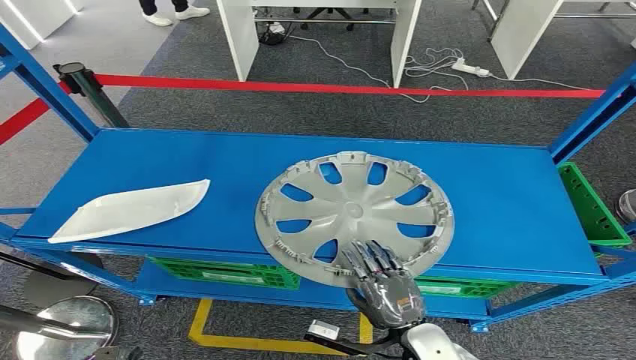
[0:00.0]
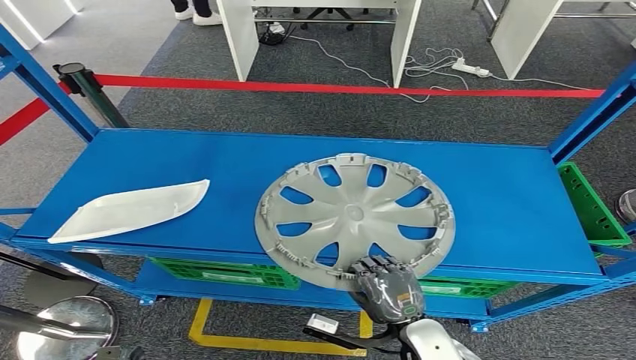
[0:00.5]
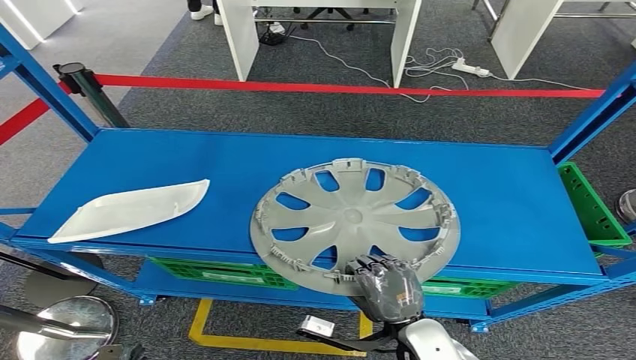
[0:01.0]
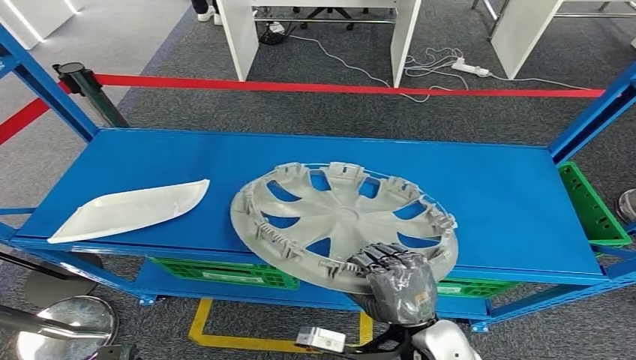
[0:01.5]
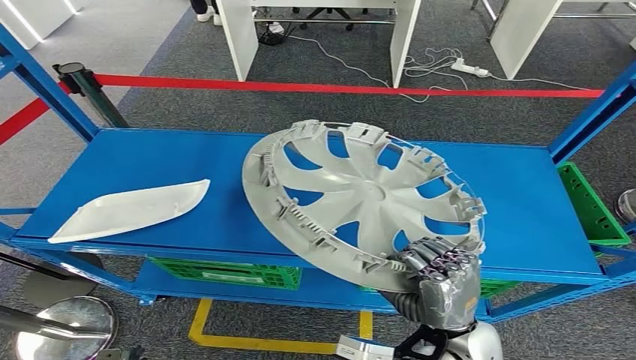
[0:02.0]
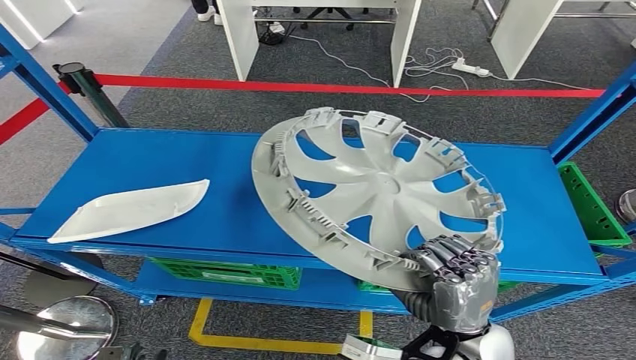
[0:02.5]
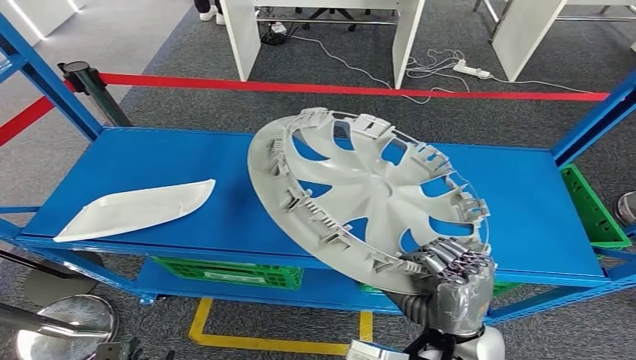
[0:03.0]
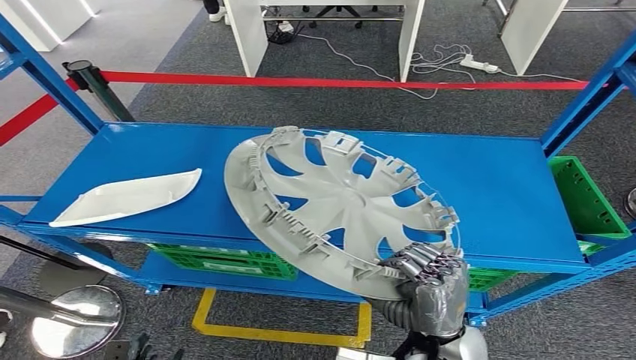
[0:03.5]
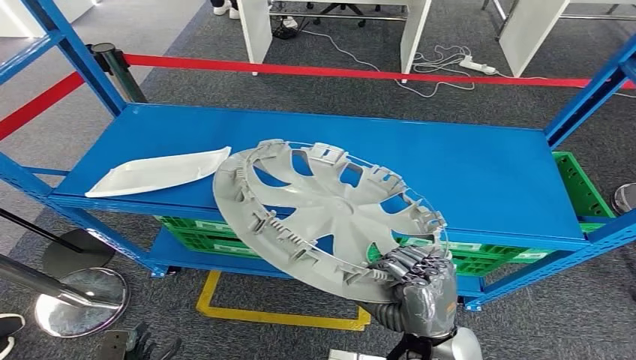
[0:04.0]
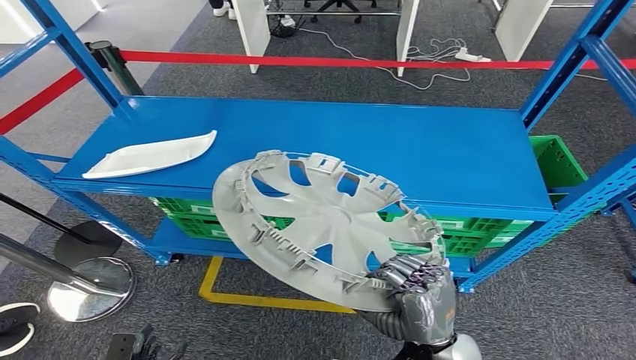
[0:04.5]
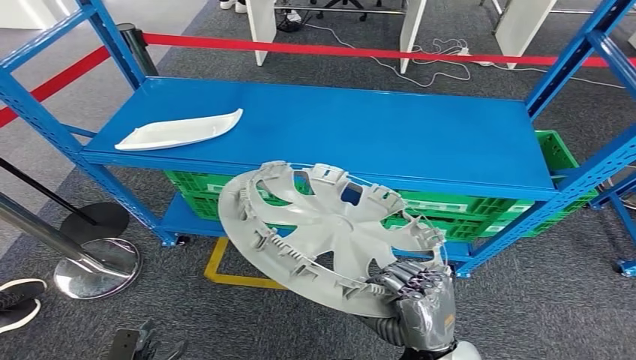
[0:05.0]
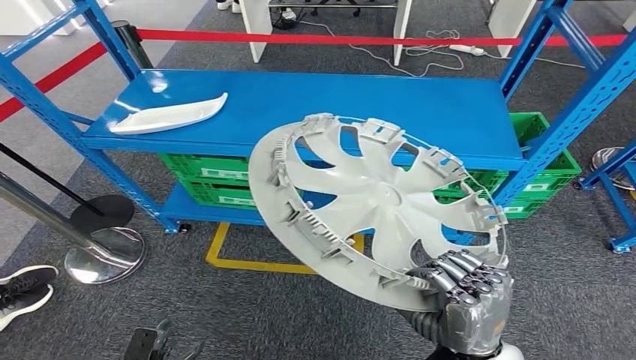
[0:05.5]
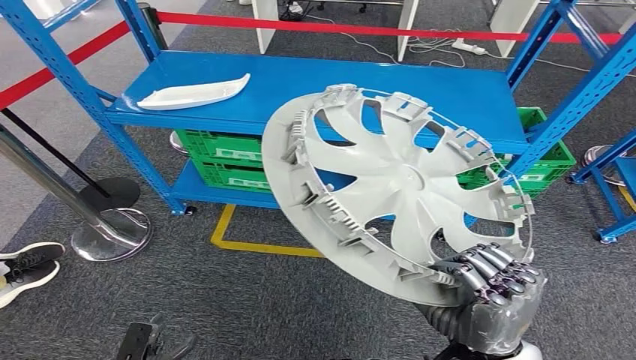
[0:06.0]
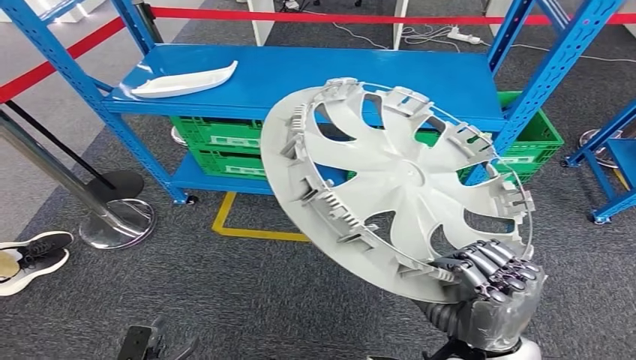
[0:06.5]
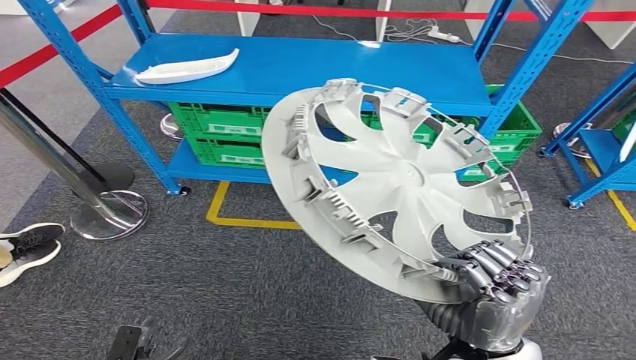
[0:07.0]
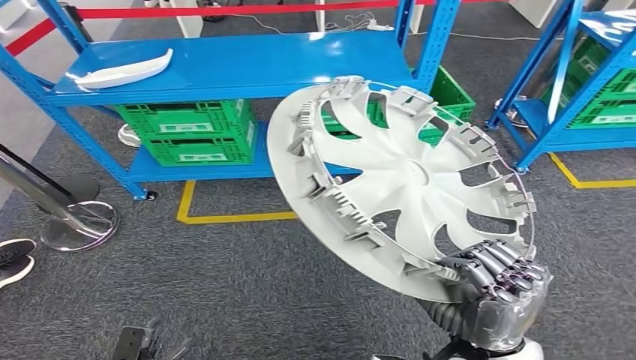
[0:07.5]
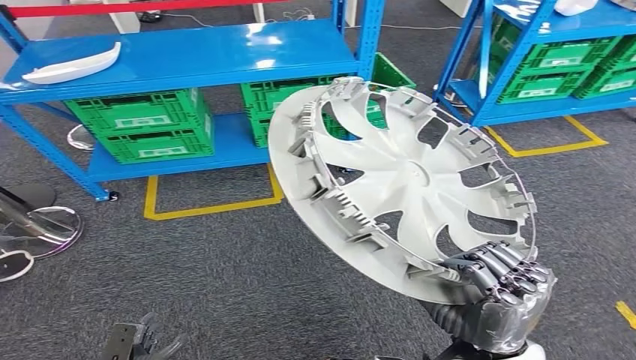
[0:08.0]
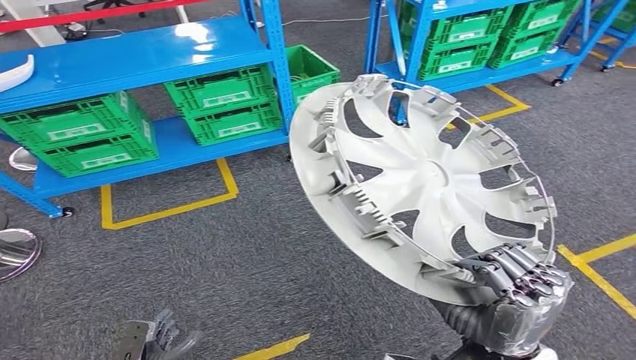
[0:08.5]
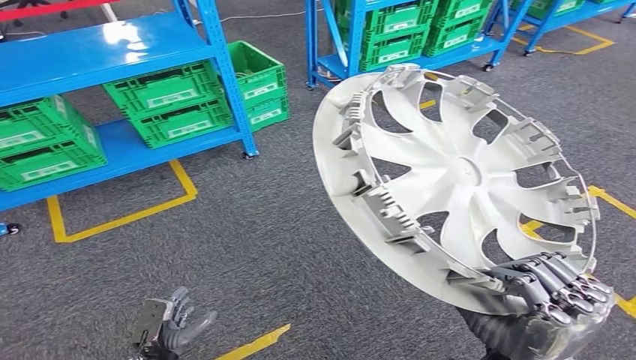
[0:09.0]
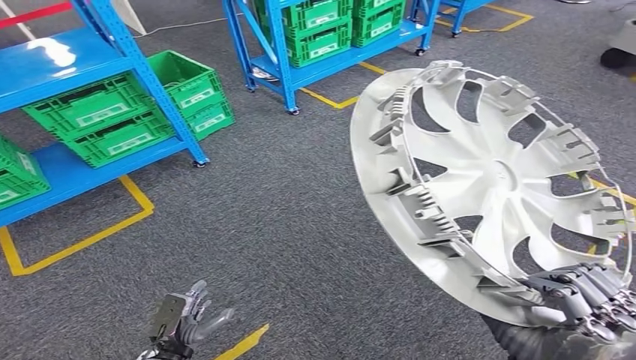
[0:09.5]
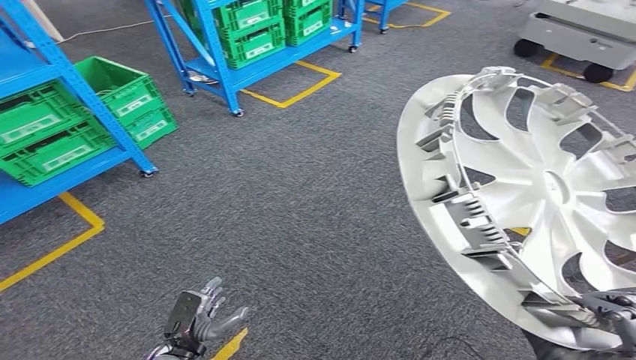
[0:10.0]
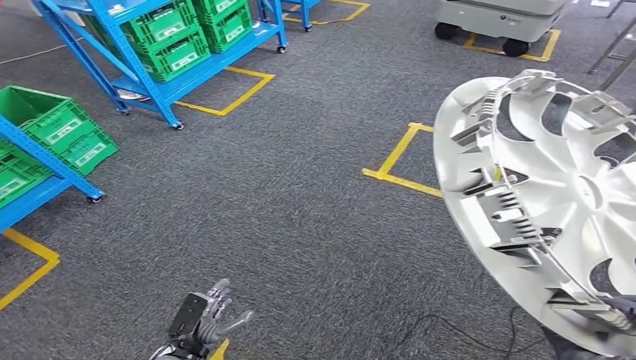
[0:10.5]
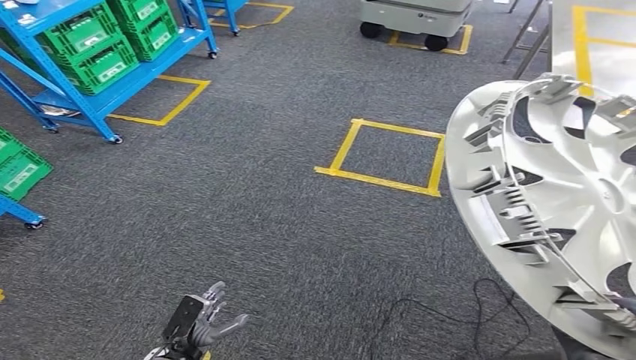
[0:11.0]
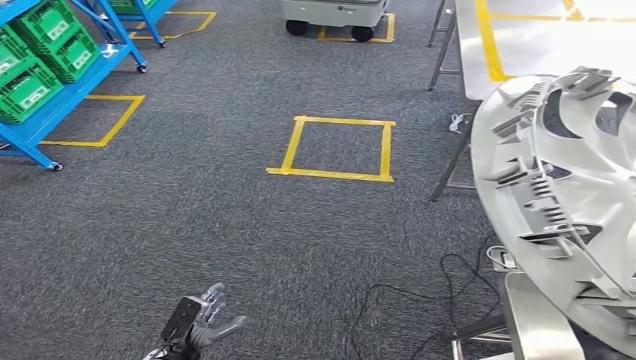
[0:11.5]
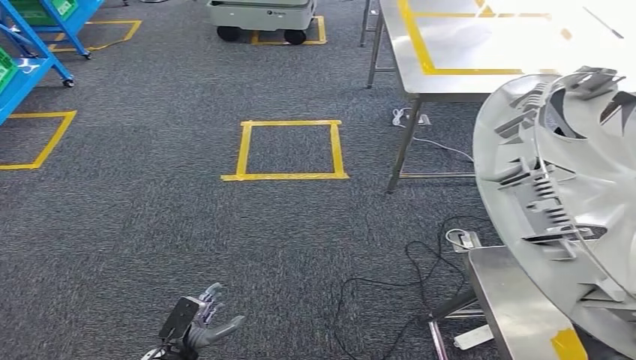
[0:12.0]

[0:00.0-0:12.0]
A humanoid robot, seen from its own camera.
Step, 0:00.0 to 0:04.0: Take small components from the rack.

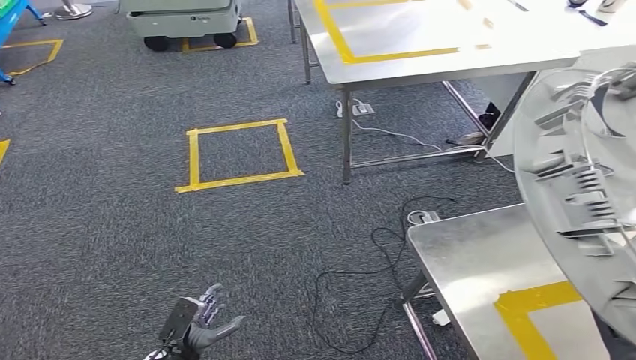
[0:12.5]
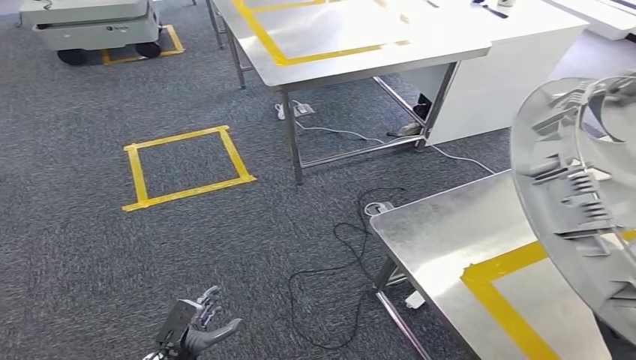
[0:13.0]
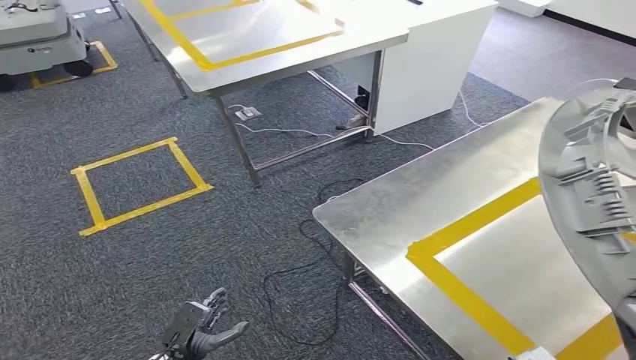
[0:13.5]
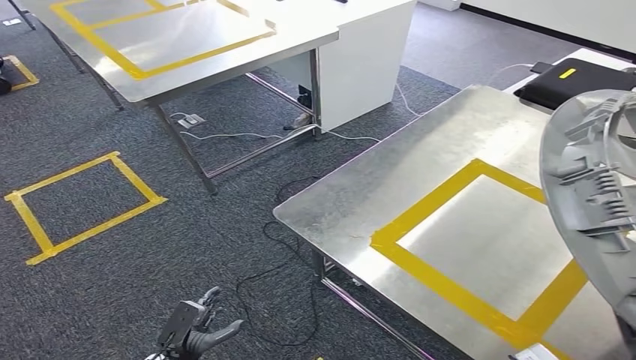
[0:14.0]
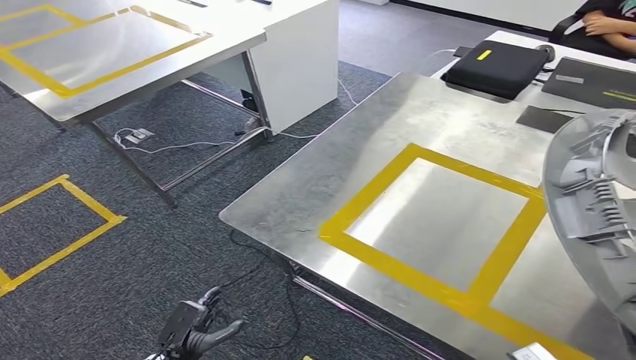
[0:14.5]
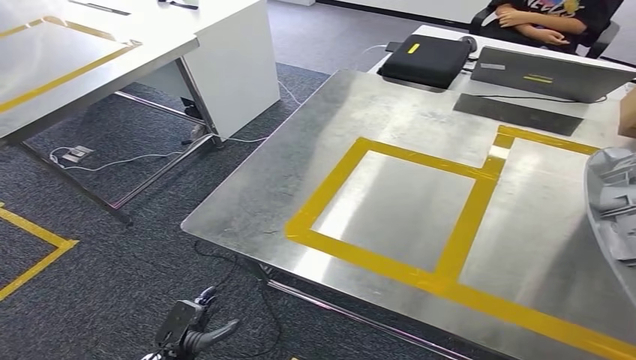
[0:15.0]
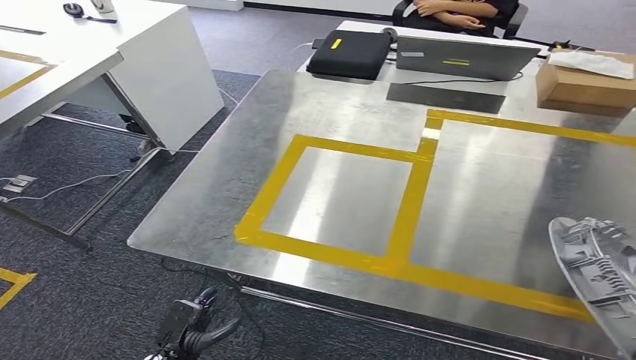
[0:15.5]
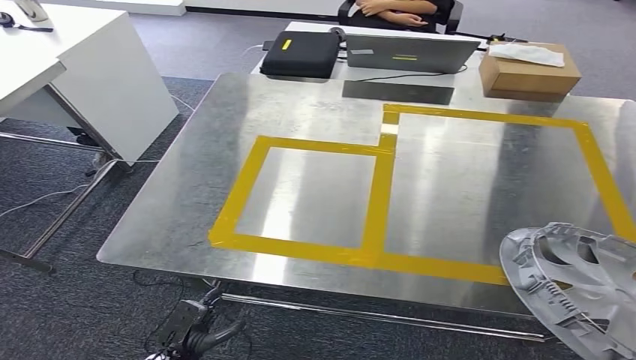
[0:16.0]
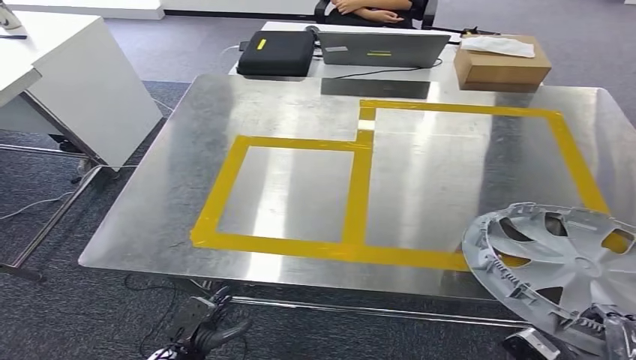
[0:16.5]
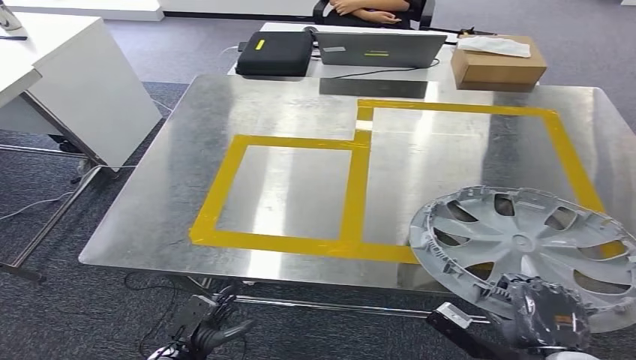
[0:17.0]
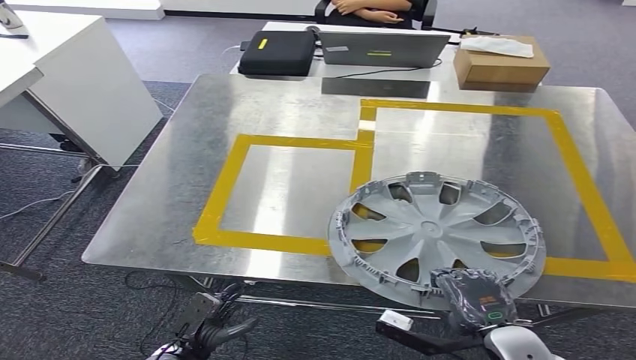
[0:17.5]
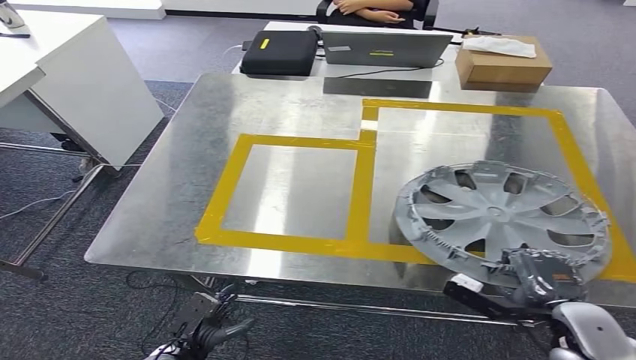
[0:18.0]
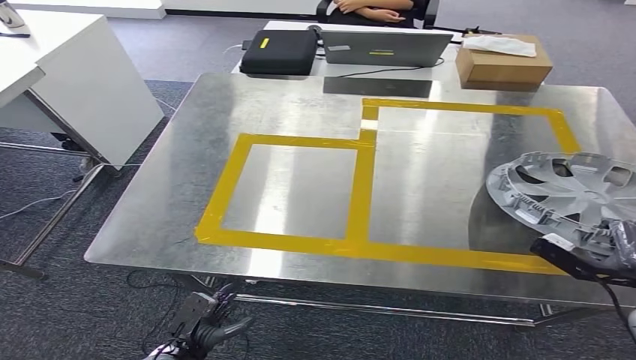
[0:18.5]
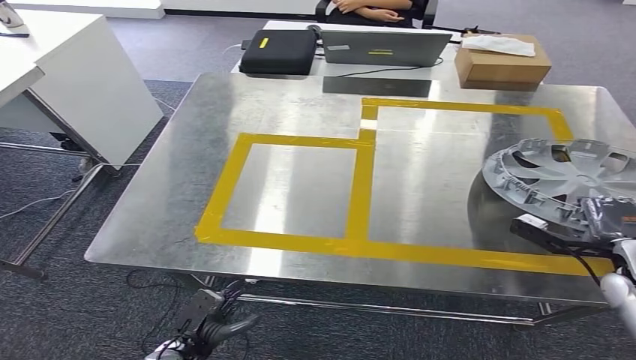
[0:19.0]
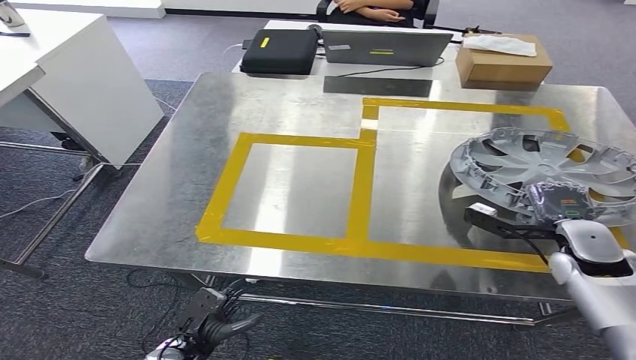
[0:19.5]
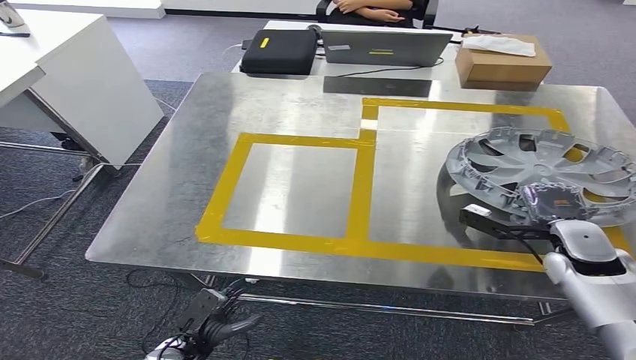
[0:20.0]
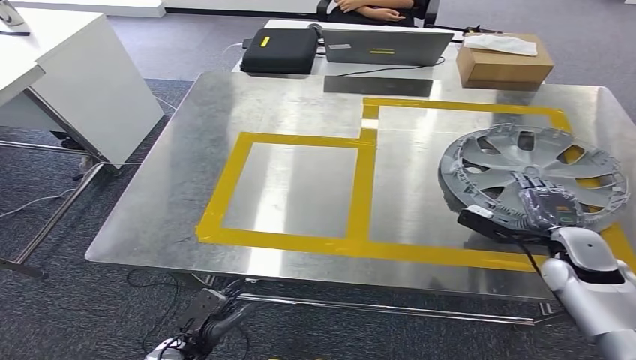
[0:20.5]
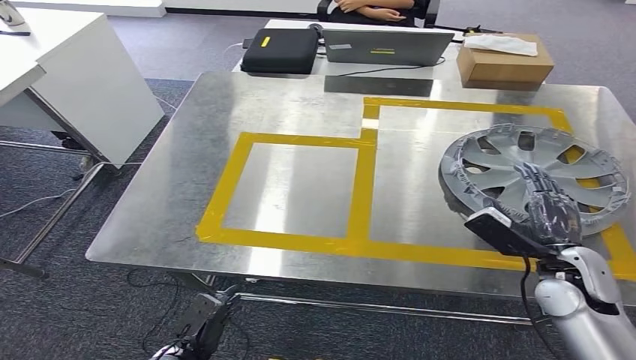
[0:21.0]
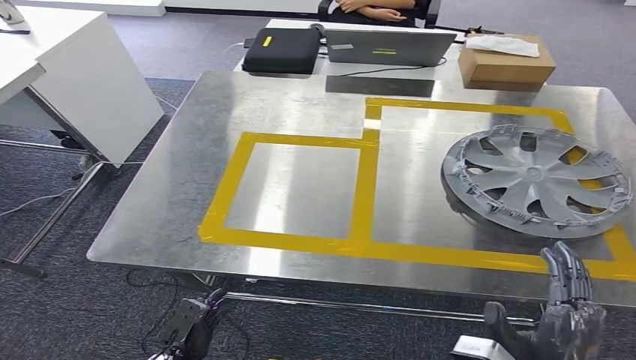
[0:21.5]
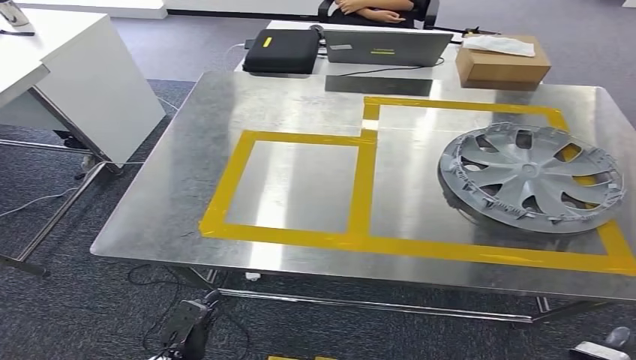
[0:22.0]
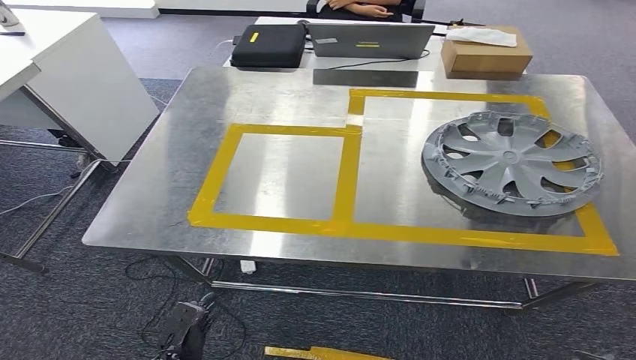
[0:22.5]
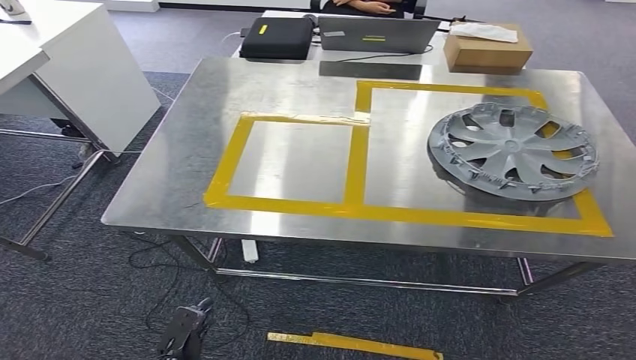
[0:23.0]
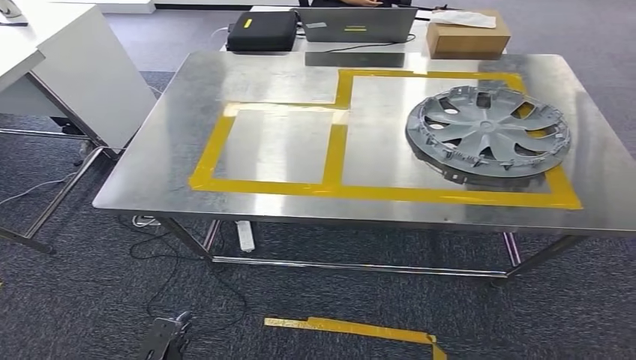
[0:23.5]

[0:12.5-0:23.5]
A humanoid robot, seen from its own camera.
Step, 0:12.5 to 0:16.5: Move the small parts to the workbench.
Step, 0:17.0 to 0:23.5: Insert the small parts into the corresponding holes on the workbench.
0:18.0 to 0:20.0: The right hand shifts about 15 cm forward.
0:20.0 to 0:21.5: The right hand is displaced backward and to the left by roughly 25 cm.
